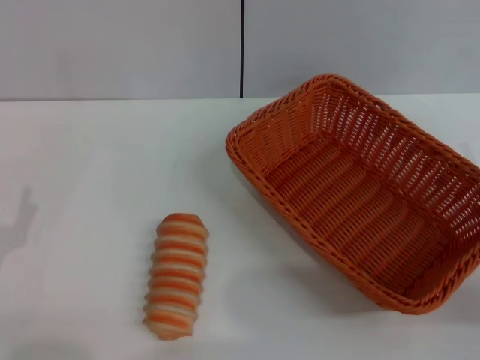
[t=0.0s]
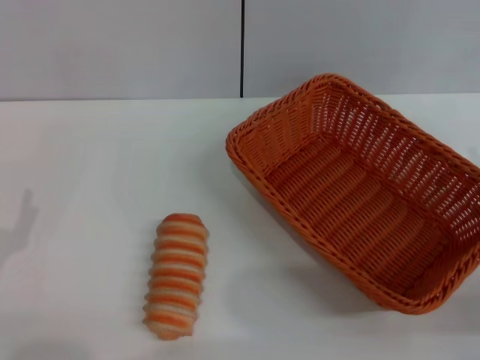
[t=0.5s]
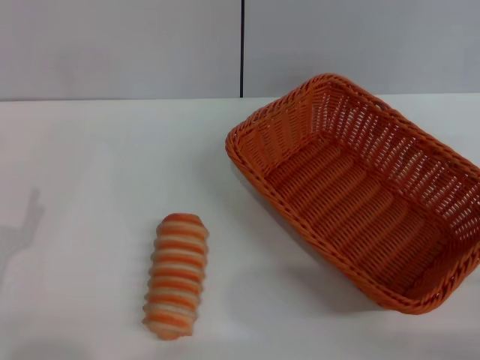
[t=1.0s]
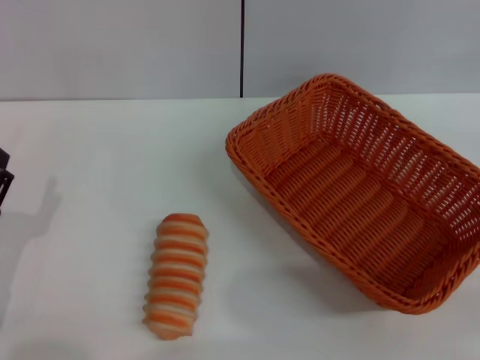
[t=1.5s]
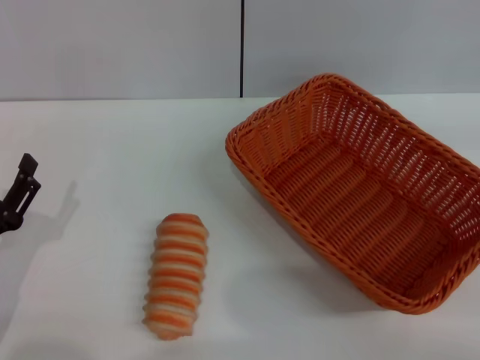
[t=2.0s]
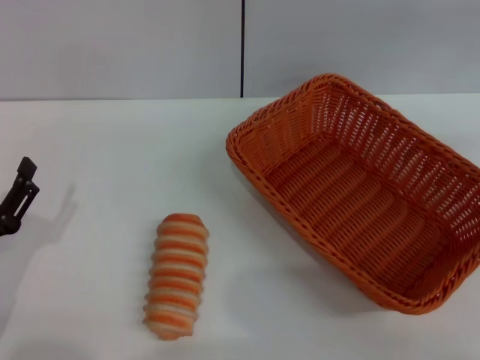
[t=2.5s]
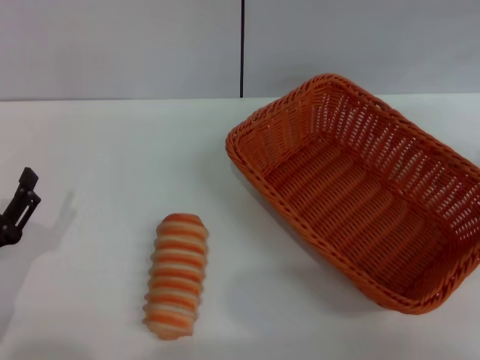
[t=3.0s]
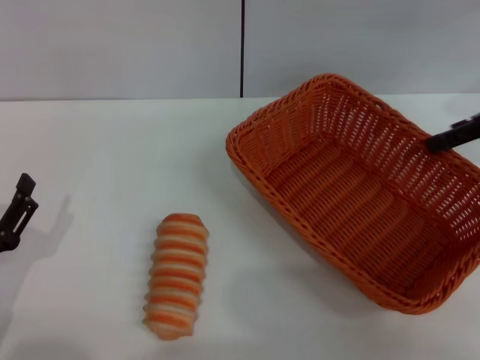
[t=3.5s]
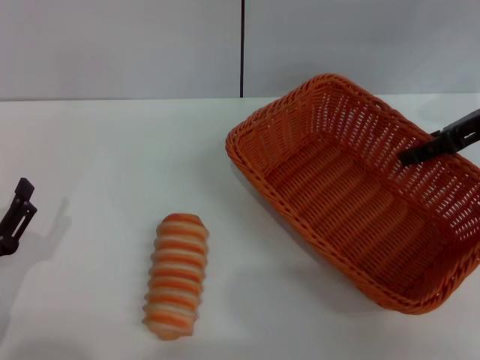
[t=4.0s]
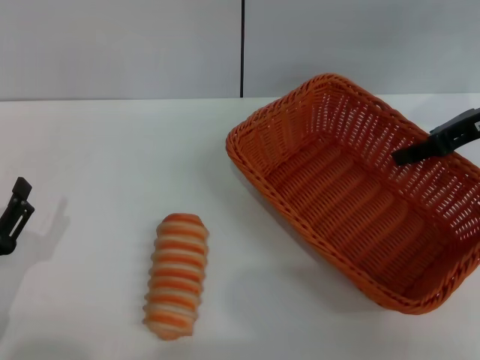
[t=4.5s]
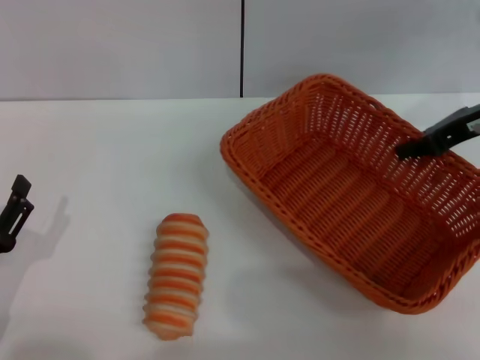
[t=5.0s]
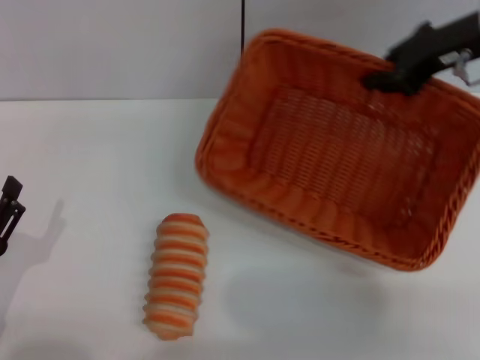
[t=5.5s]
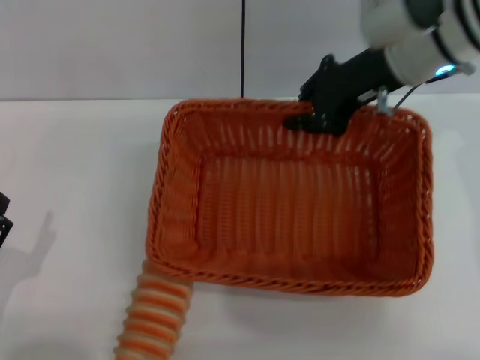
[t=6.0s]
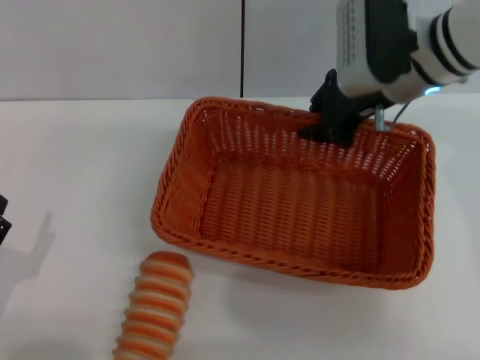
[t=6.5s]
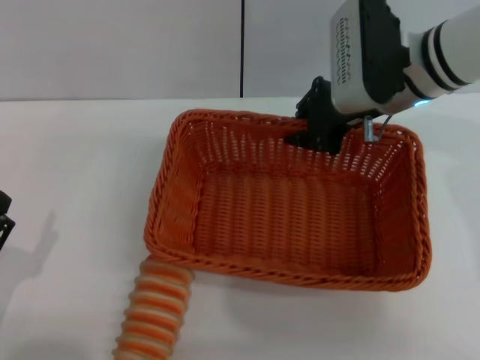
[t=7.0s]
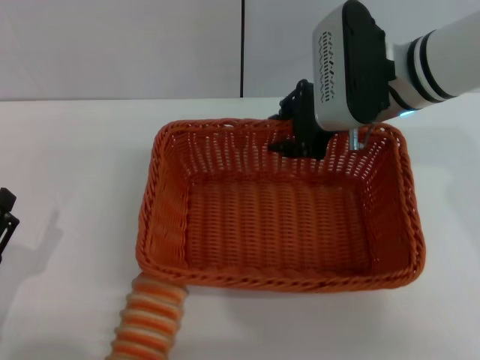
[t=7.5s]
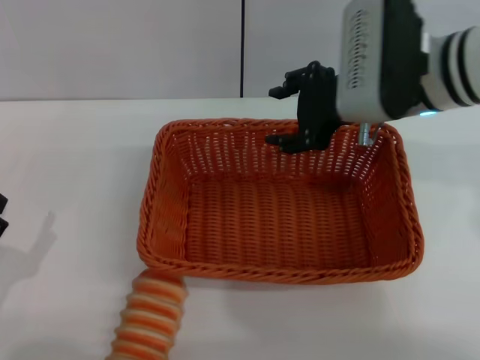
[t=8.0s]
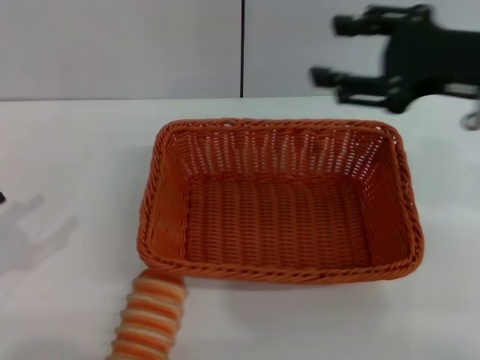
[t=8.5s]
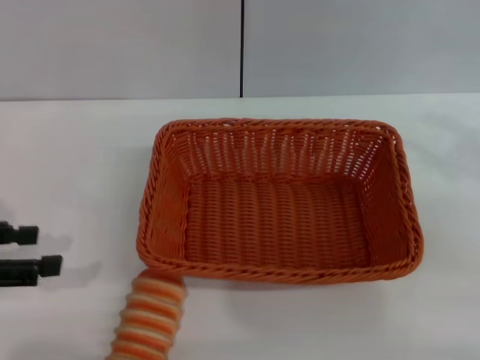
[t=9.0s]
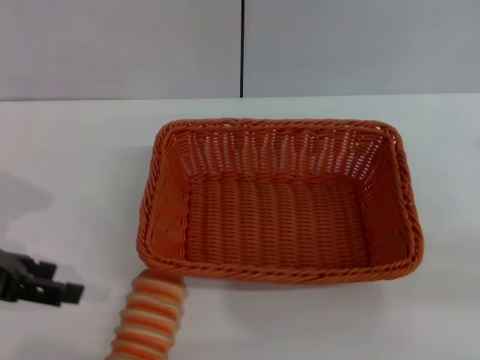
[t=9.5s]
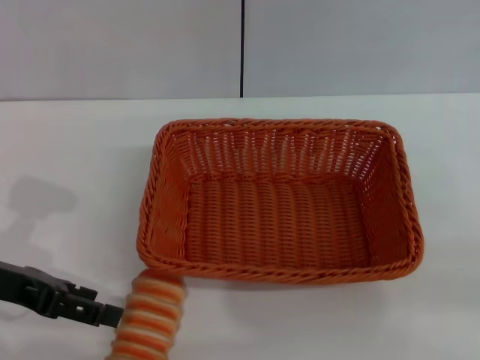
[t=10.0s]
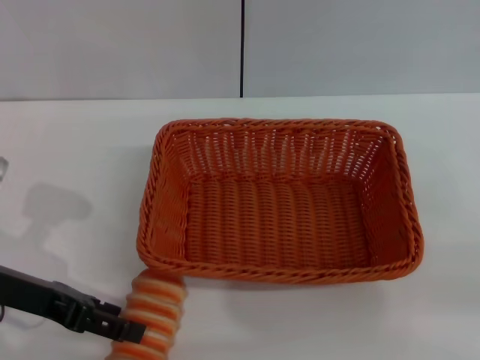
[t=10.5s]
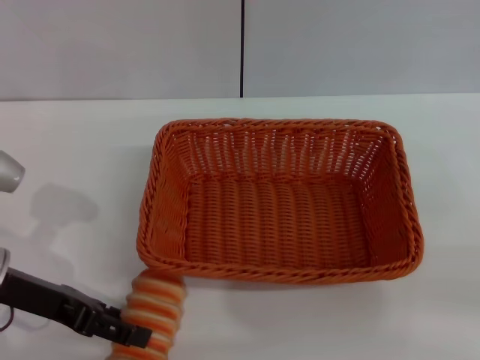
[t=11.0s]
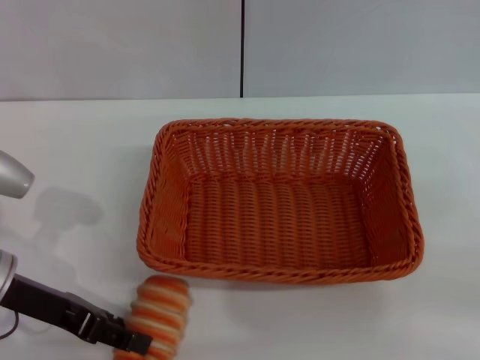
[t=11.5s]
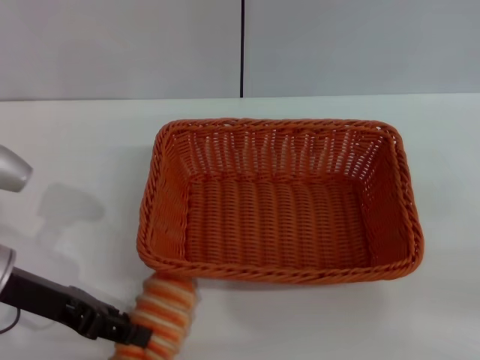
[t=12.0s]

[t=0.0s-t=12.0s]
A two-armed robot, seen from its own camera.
Step, t=0.0s to t=5.0s: Pick up the light basket with the right gripper.
Step, t=5.5s to t=8.0s: Place the light basket in the center of view with the right gripper.
t=0.0s to t=2.0s: The right gripper heads upward and to the right, covering about 20 cm.
t=2.0s to t=4.0s: The right gripper goes about 20 cm forward and to the left.
t=4.0s to t=6.0s: The right gripper moves to the left, roughly 15 cm, and closes.
t=6.0s to t=8.0s: The right gripper shifts about 5 cm backward, and opens up.
t=8.0s to t=10.0s: The right gripper shifts about 30 cm to the right and backward; the left gripper goes roughly 15 cm forward and upward.
t=10.0s to t=12.0s: The left gripper closes its fingers.

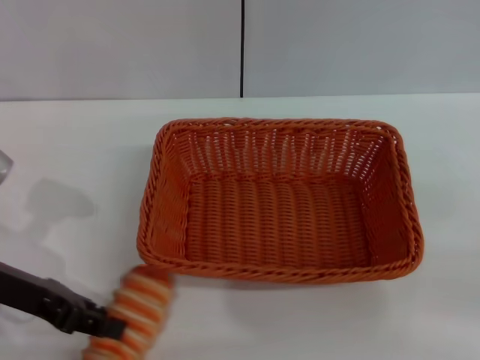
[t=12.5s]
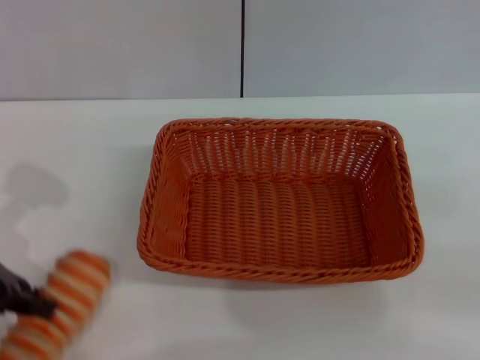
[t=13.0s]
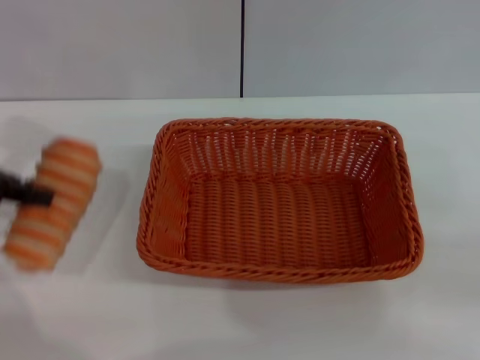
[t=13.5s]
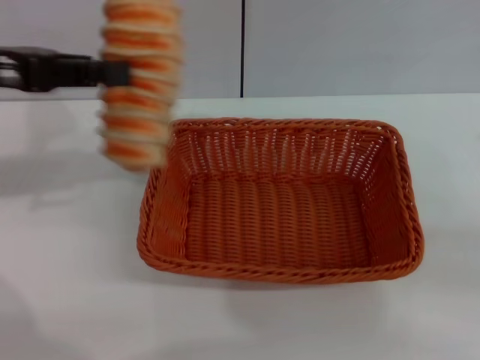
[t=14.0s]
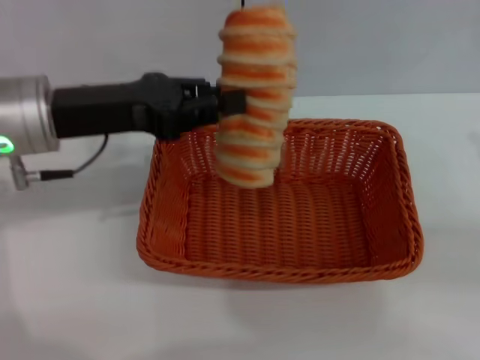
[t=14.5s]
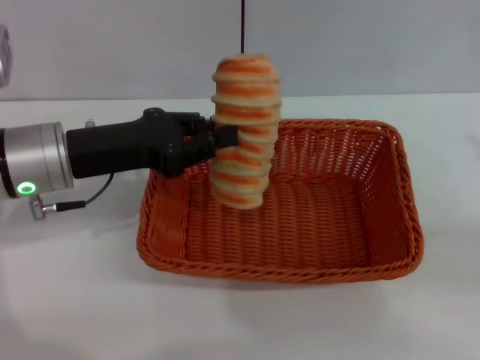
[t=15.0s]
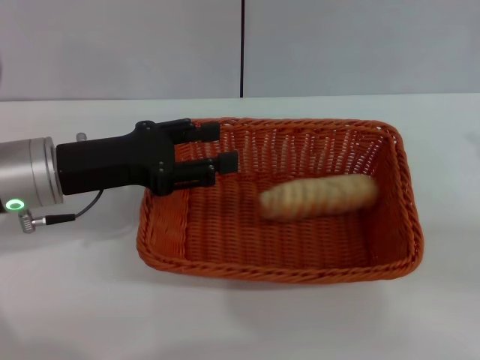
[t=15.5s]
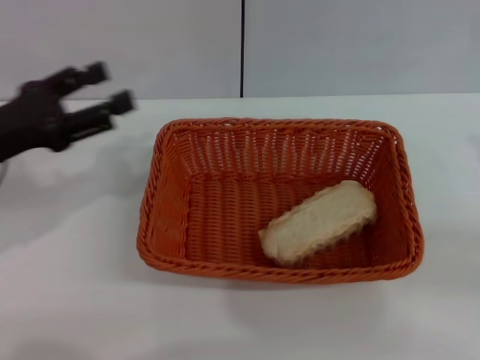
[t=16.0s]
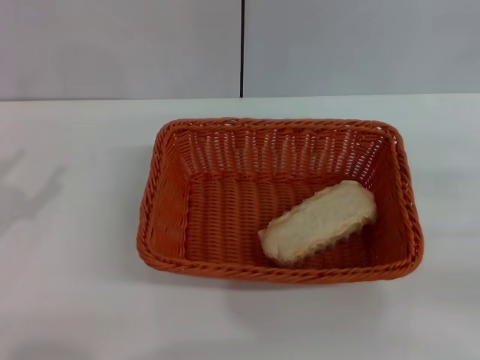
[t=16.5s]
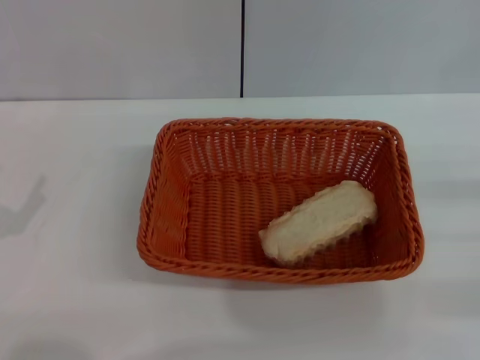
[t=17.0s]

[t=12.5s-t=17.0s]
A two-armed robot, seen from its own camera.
Step, t=13.5s to t=15.0s: Place the long bread into the light basket with the left gripper.
t=12.5s to t=14.5s: The left gripper travels upward, to the right and forward by roughly 10 cm.
t=14.5s to t=17.0s: The left gripper goes some 25 cm backward, to the left and downward, and opens its fingers. The right gripper shifts some 10 cm downward.

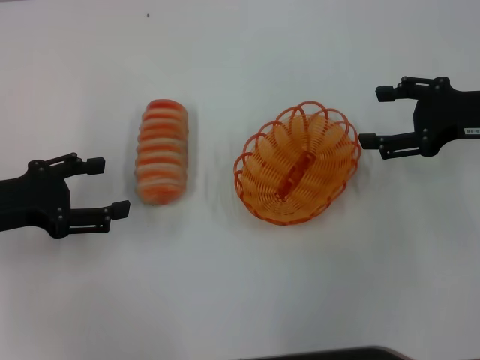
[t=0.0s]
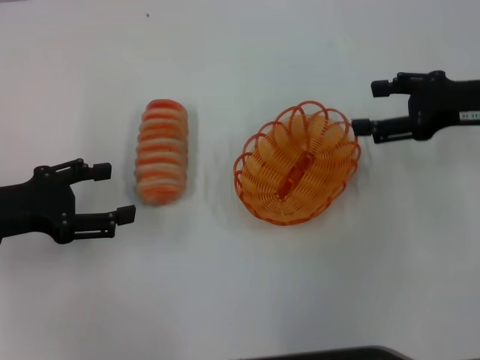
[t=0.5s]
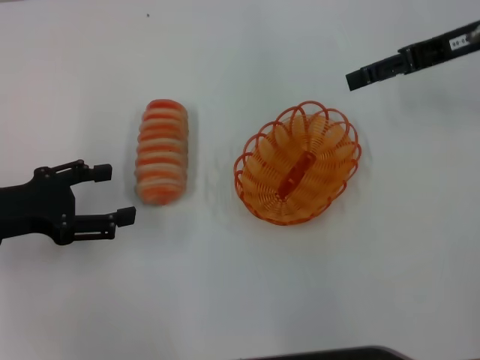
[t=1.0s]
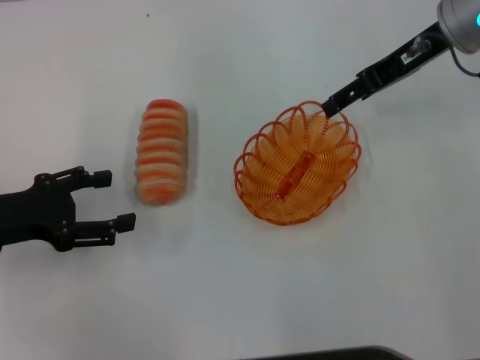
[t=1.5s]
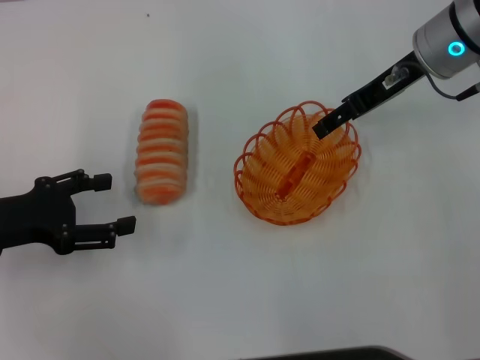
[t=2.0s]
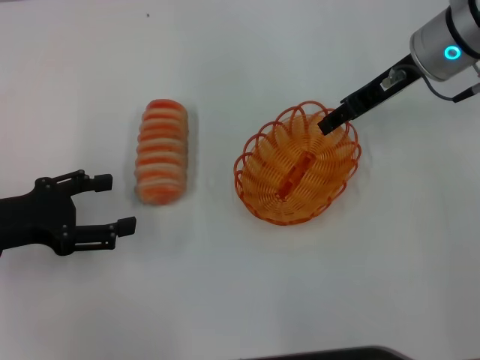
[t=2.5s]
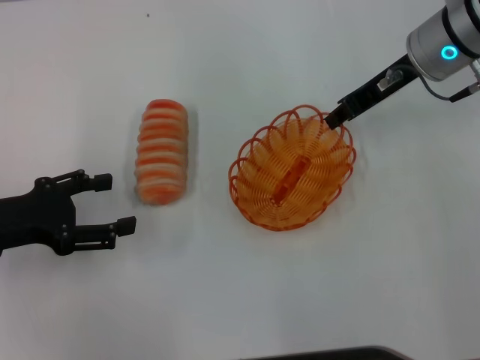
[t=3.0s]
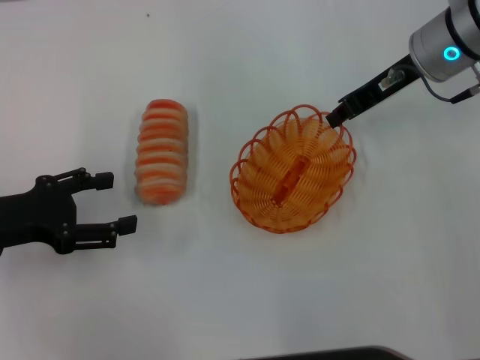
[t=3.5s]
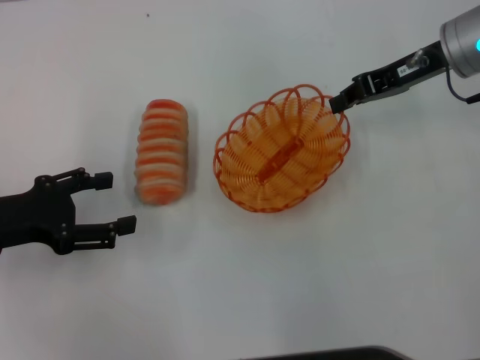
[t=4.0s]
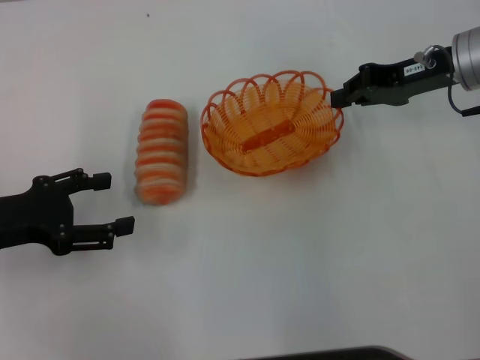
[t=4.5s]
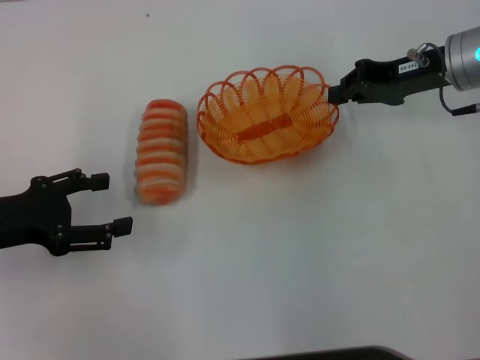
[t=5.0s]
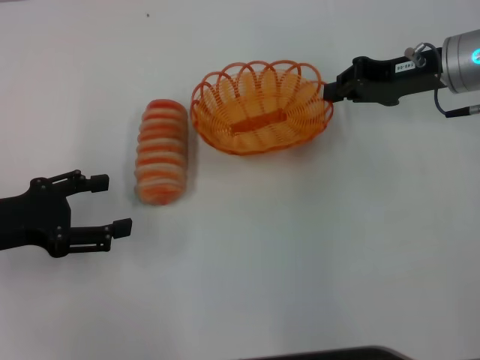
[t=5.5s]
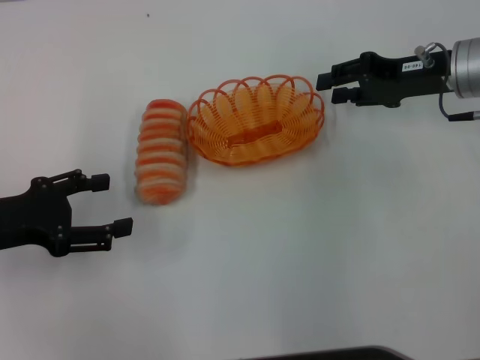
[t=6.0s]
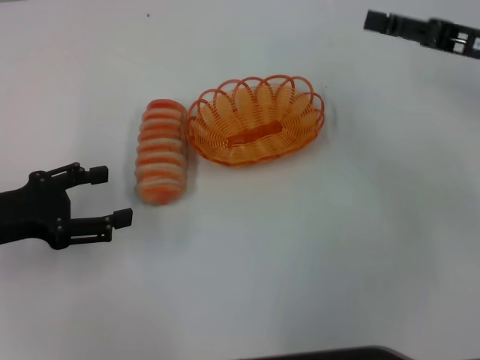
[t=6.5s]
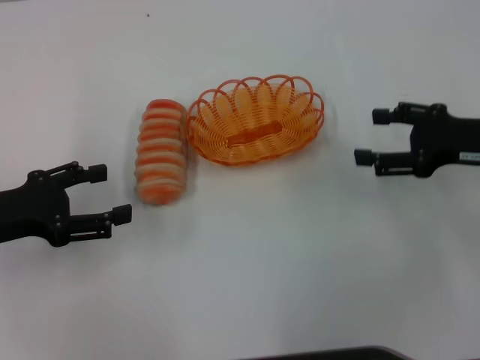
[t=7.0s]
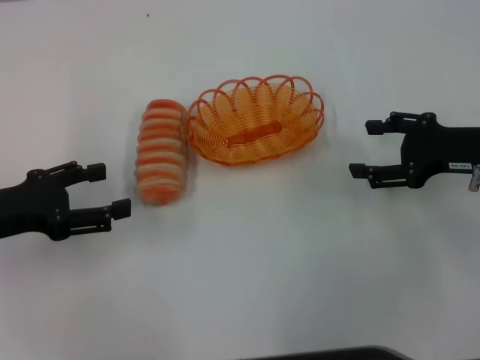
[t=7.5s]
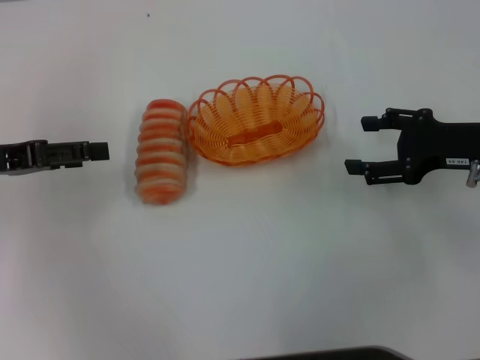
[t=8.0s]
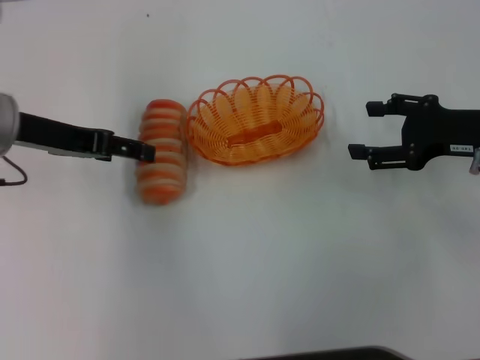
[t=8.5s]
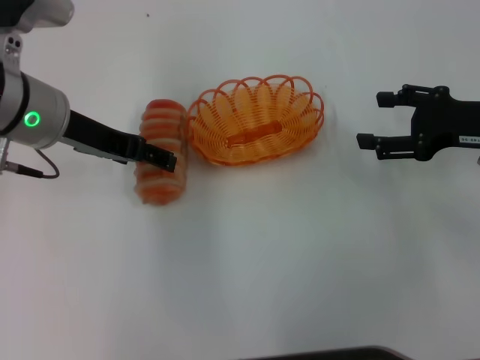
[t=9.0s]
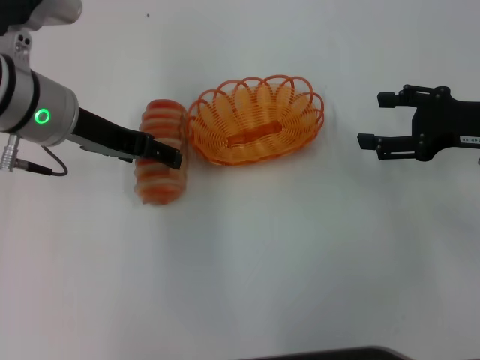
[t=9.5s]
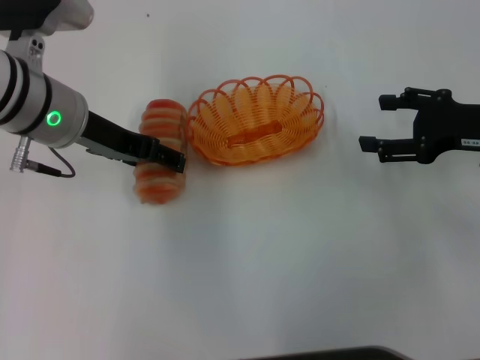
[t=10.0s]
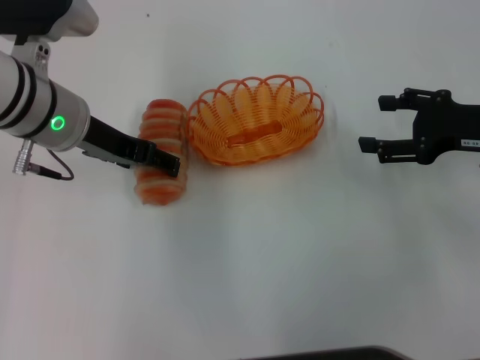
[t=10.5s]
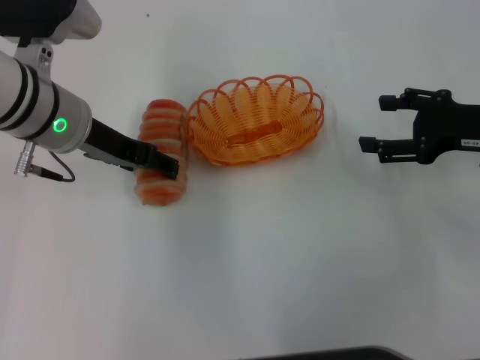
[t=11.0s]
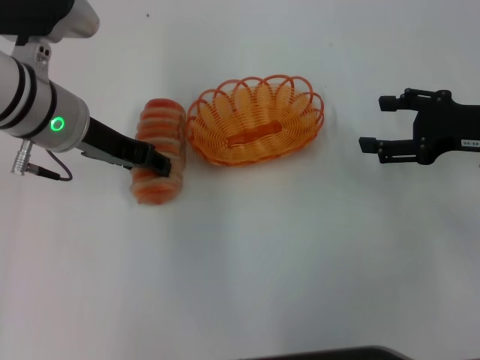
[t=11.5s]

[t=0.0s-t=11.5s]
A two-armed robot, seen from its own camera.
Step, t=0.0s to t=3.5s: Pick up the basket with the right gripper.
Step, t=4.0s to t=5.5s: Place the basket in the center of view with the right gripper.
t=0.0s to t=2.0s: The right gripper travels to the left and forward by some 15 cm.
t=2.0s to t=4.0s: The right gripper closes up.
t=6.0s to t=7.5s: The right gripper is displaced backward by roughly 10 cm, and opens its fingers.
t=7.5s to t=9.5s: The left gripper is displaced to the right, forward and upward by roughly 15 cm.
t=9.5s to t=11.5s: The left gripper closes.
